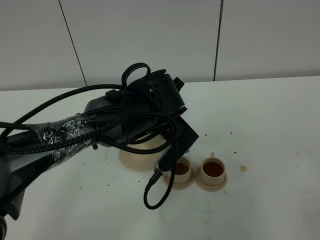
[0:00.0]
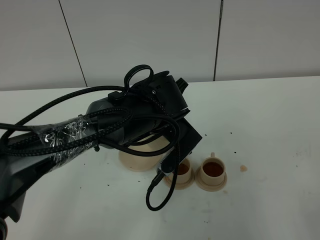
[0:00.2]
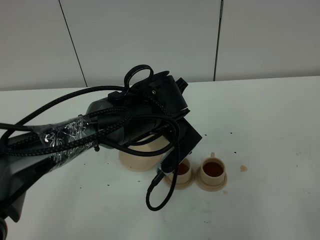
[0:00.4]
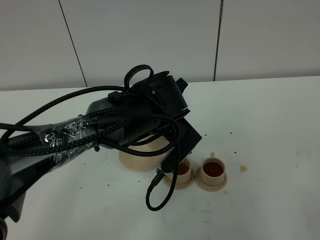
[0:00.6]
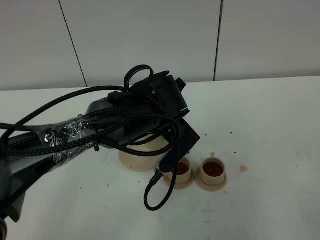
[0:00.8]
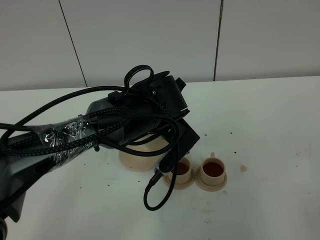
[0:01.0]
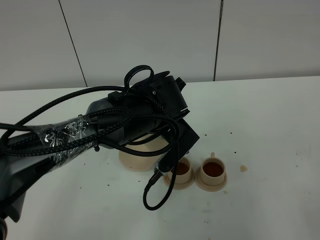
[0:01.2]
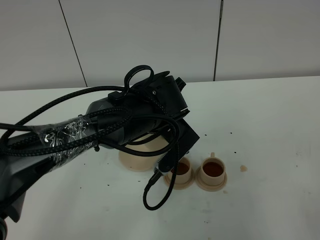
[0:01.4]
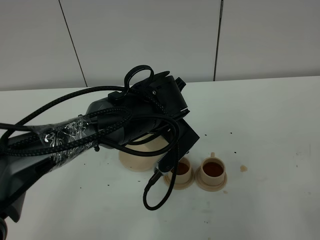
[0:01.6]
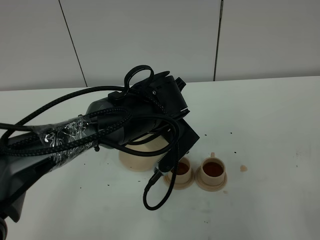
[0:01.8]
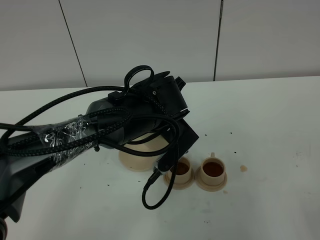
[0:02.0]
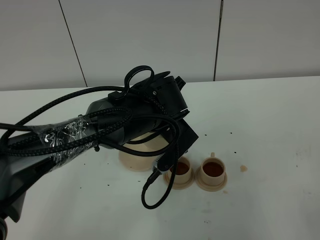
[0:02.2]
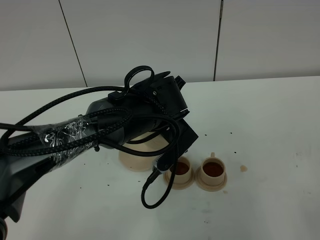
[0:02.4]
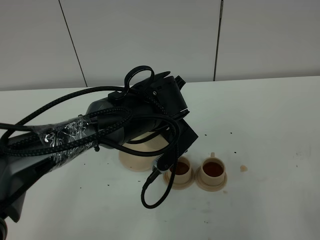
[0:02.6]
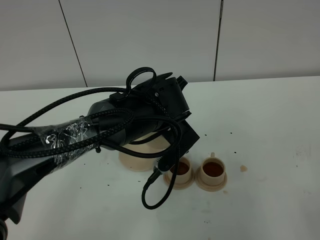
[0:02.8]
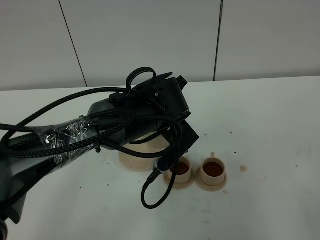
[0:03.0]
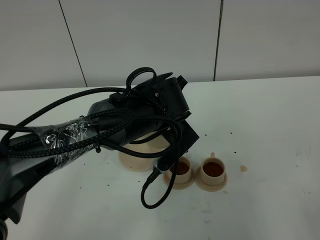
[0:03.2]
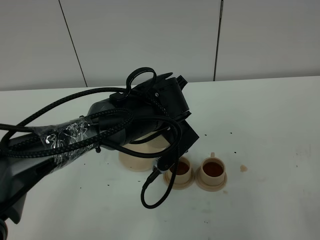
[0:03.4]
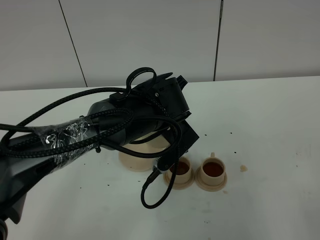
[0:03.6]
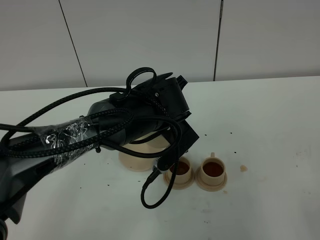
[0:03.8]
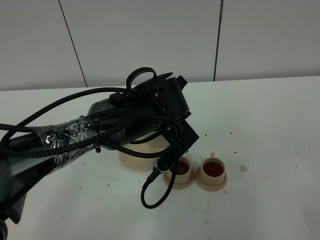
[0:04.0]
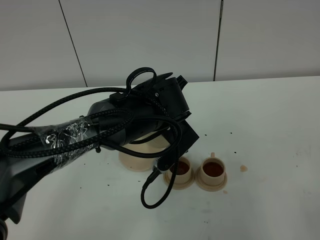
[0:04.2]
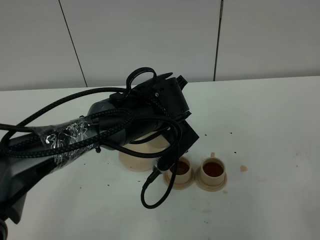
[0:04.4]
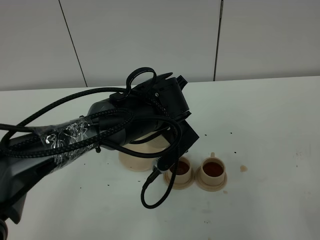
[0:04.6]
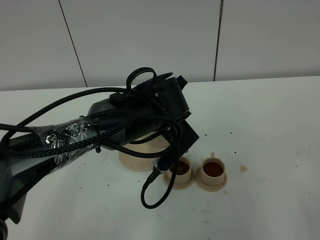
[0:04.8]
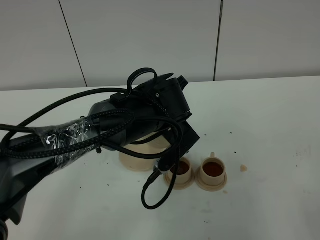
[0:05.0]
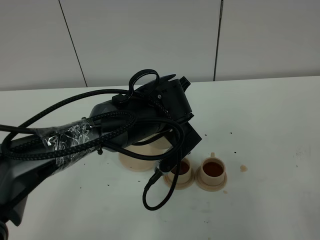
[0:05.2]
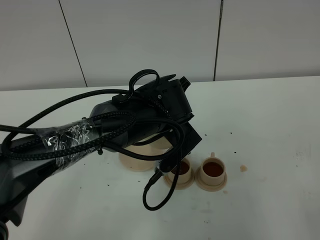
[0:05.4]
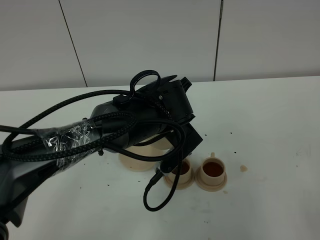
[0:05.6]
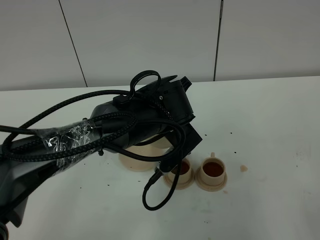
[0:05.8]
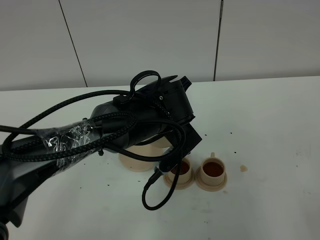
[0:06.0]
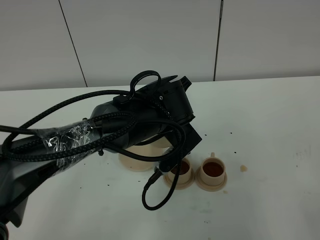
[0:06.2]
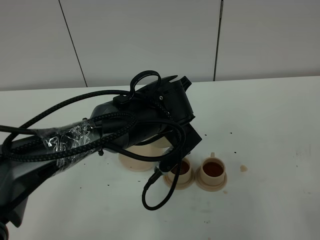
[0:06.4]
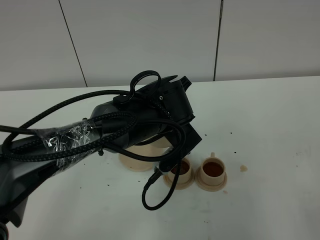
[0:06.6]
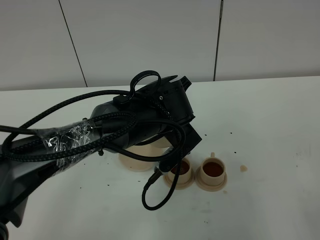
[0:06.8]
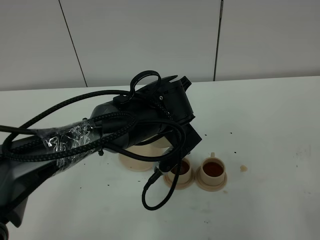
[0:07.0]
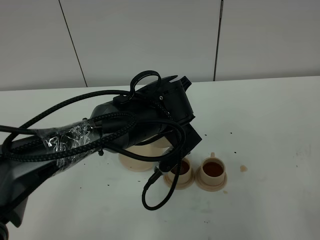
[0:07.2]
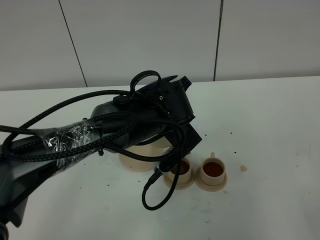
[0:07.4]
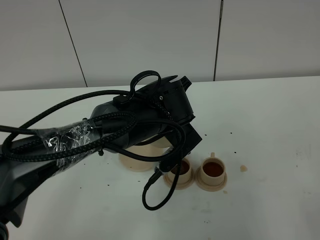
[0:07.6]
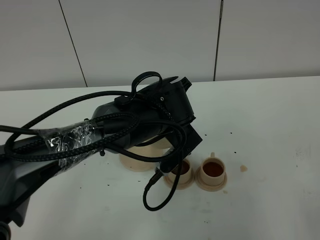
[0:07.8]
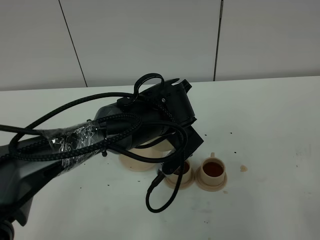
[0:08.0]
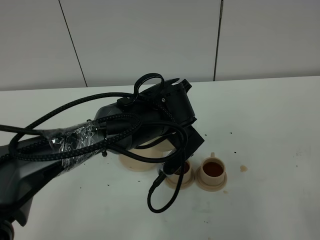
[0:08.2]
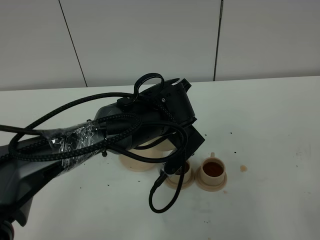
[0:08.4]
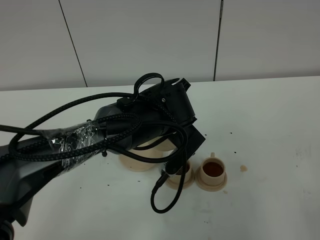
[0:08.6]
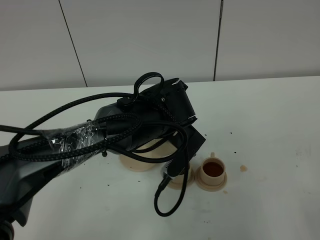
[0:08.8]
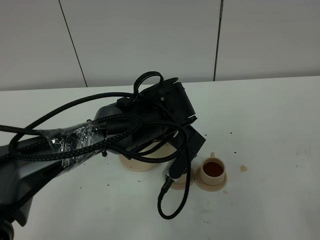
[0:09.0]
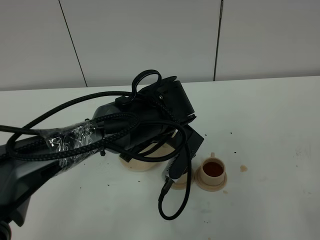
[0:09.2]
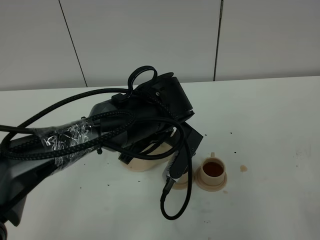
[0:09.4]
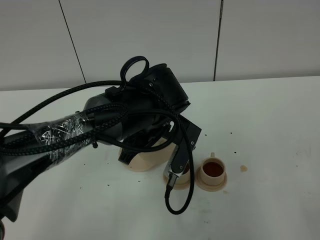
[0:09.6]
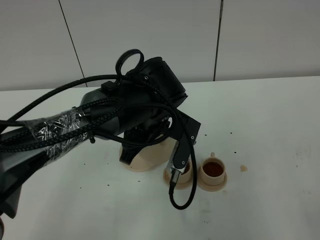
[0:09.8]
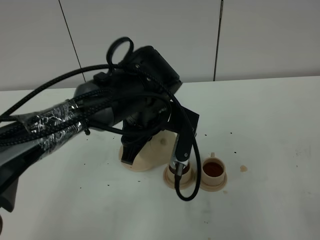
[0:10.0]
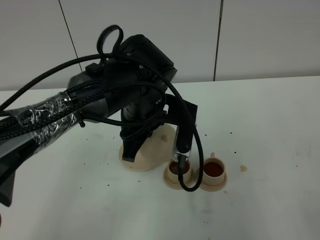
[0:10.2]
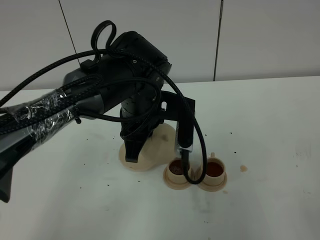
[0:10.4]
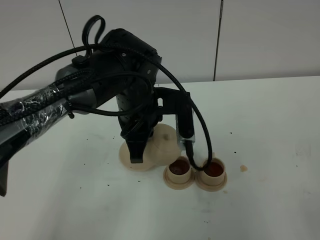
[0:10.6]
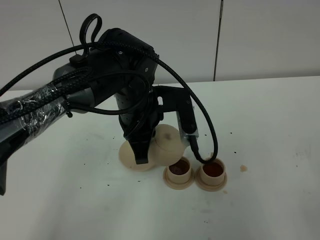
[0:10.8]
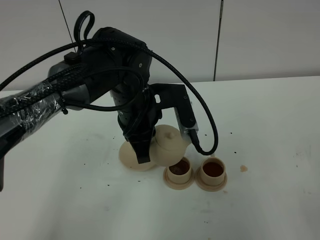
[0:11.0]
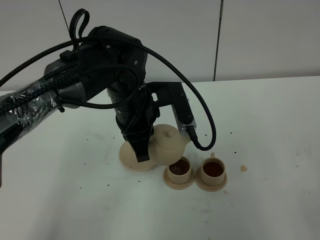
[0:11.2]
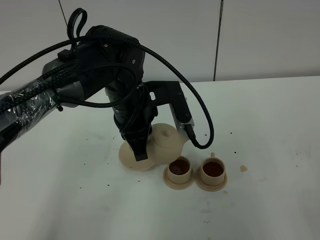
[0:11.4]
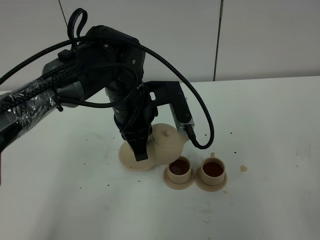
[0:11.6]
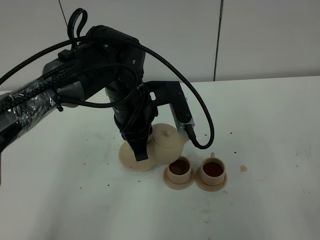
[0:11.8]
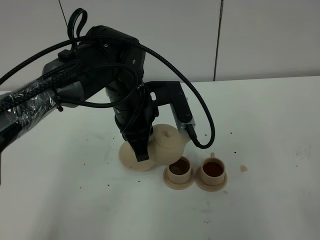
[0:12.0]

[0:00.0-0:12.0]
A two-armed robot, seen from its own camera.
Task of the whole recording: grasp the brown teapot and pour the tea into the two brown teacups one by one, put the brown teapot back in its original place.
Step, 0:00.0 to 0:09.4: Pour tea into the teacup with the left gripper.
0:00.0 to 0:04.4: The two grippers keep their place.
0:04.4 to 0:07.6: Both grippers stay about where they are.
0:07.6 to 0:09.0: The grippers make only small movements.

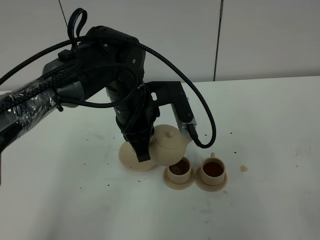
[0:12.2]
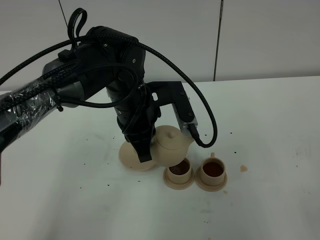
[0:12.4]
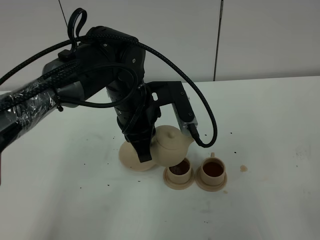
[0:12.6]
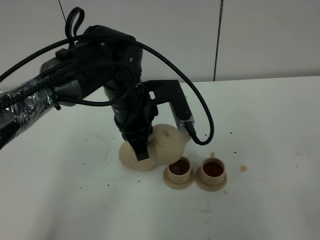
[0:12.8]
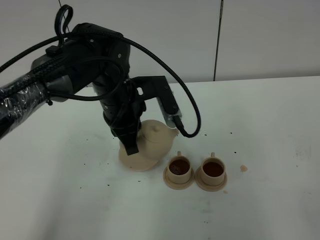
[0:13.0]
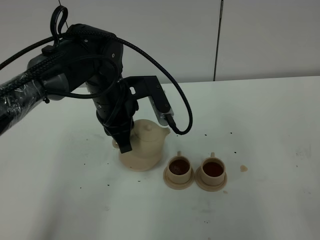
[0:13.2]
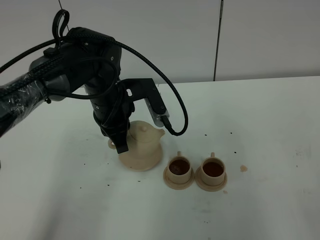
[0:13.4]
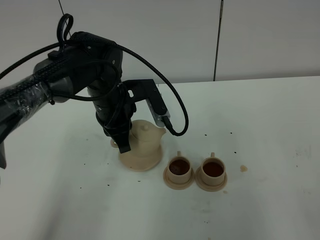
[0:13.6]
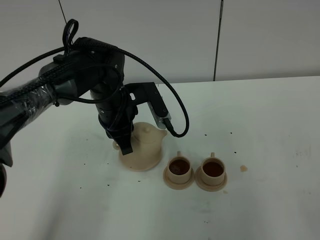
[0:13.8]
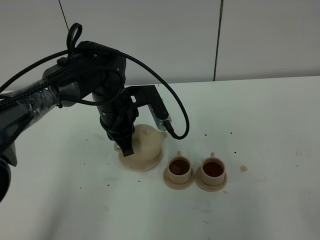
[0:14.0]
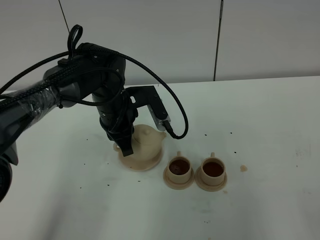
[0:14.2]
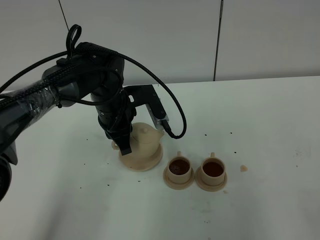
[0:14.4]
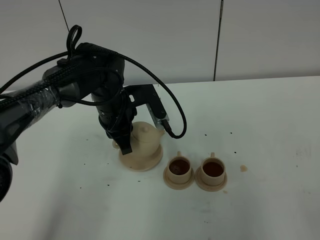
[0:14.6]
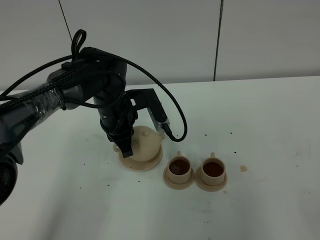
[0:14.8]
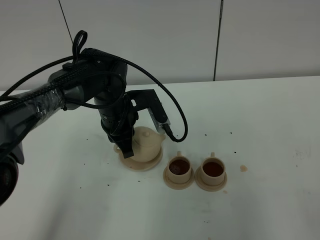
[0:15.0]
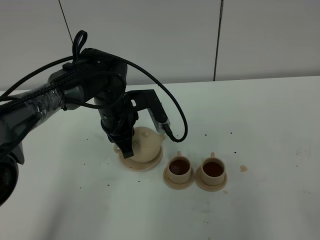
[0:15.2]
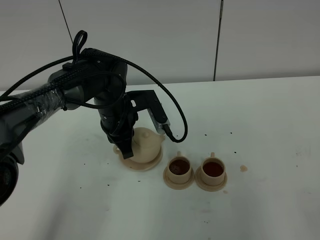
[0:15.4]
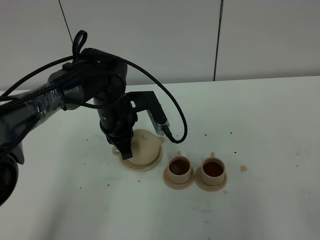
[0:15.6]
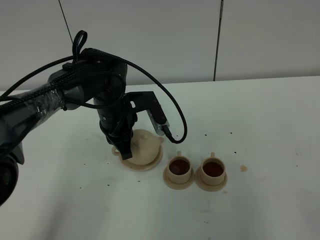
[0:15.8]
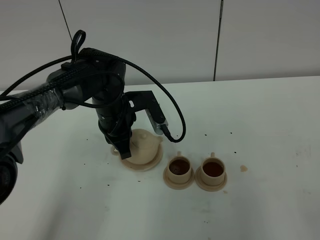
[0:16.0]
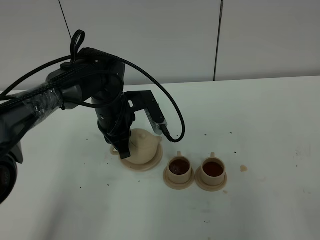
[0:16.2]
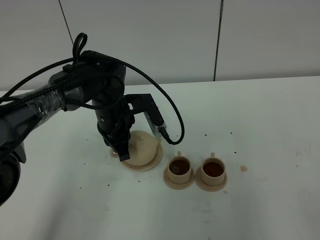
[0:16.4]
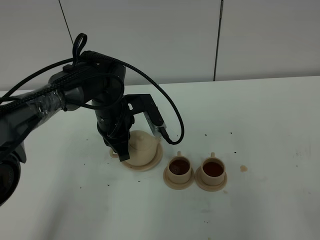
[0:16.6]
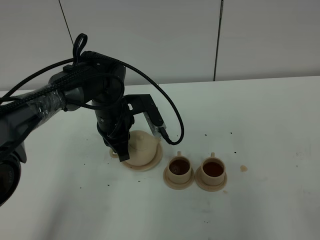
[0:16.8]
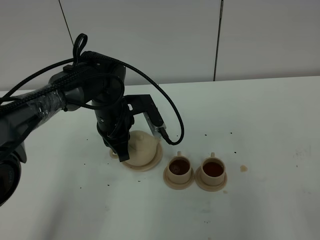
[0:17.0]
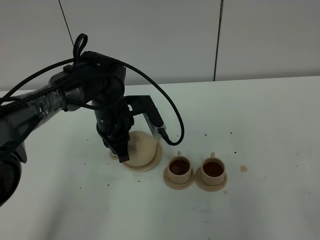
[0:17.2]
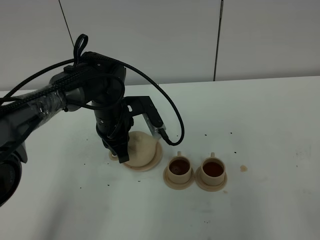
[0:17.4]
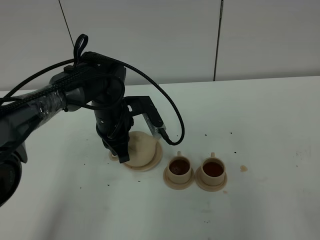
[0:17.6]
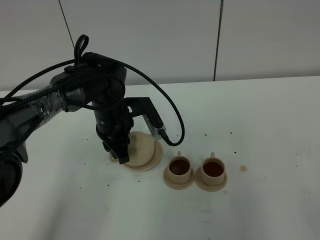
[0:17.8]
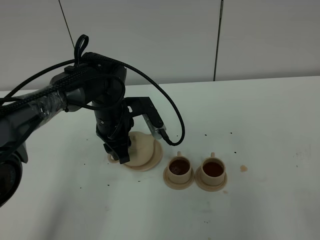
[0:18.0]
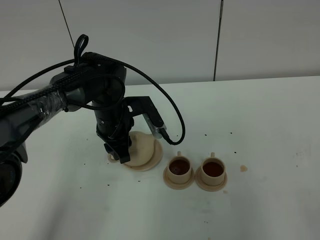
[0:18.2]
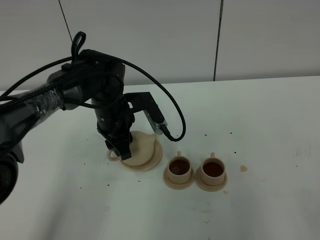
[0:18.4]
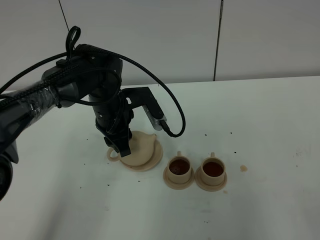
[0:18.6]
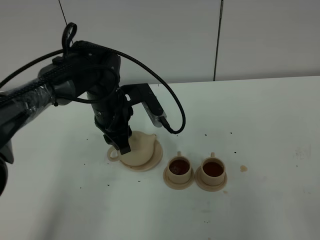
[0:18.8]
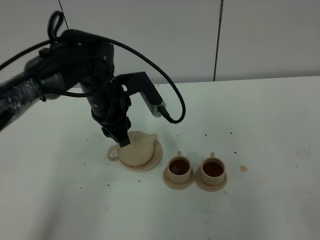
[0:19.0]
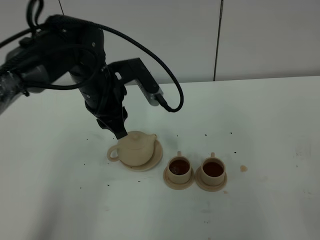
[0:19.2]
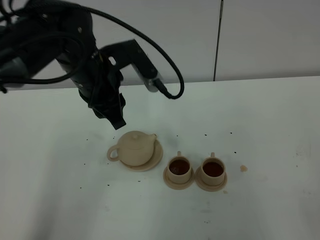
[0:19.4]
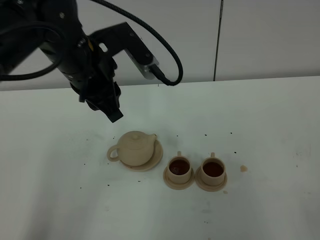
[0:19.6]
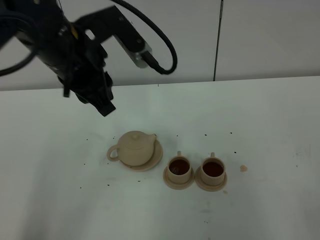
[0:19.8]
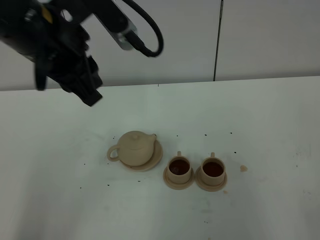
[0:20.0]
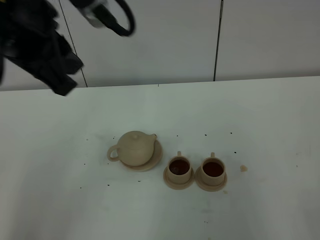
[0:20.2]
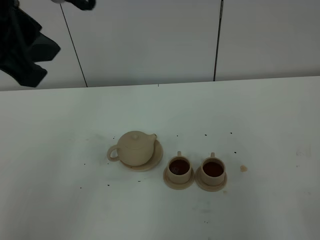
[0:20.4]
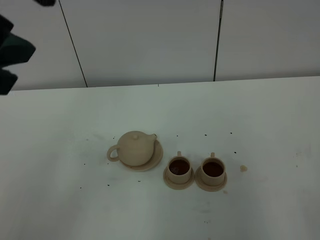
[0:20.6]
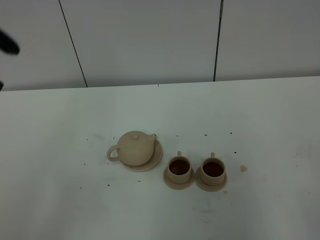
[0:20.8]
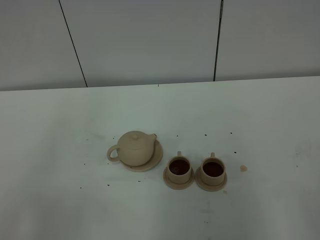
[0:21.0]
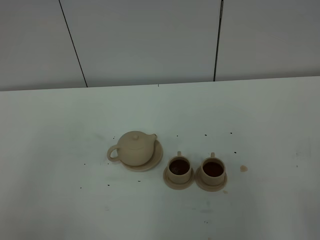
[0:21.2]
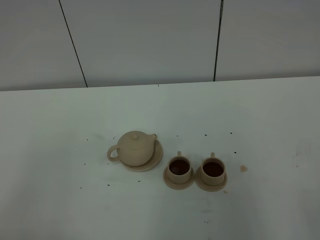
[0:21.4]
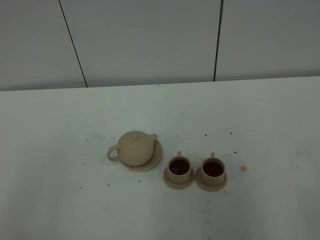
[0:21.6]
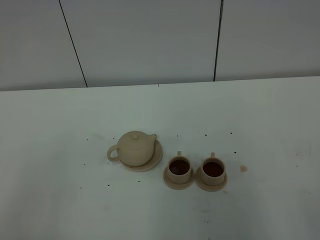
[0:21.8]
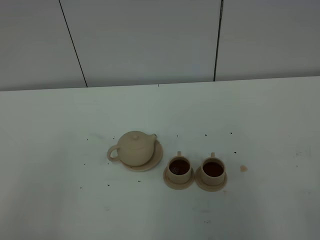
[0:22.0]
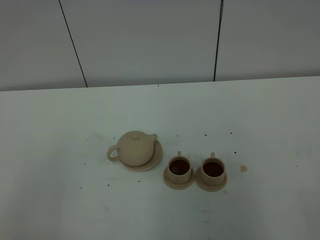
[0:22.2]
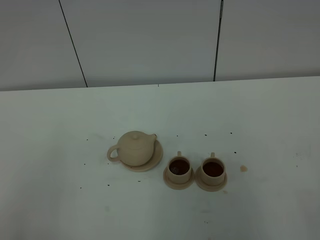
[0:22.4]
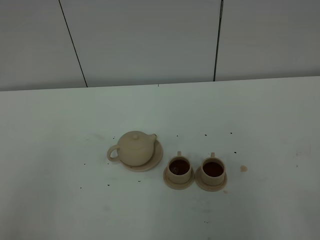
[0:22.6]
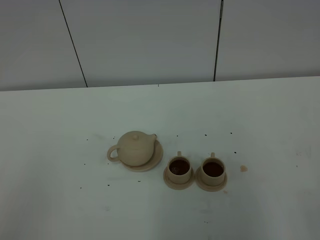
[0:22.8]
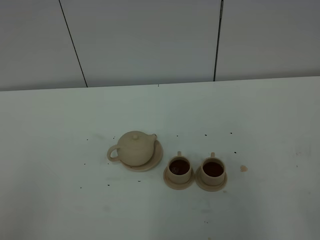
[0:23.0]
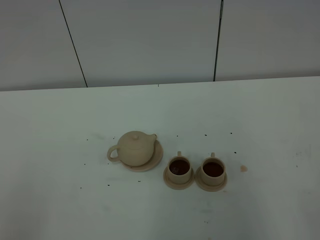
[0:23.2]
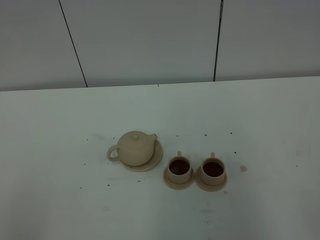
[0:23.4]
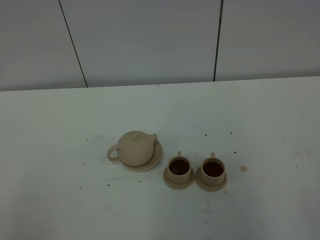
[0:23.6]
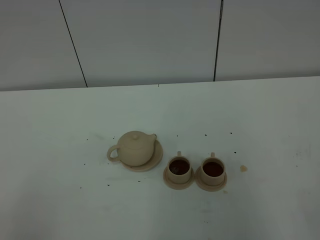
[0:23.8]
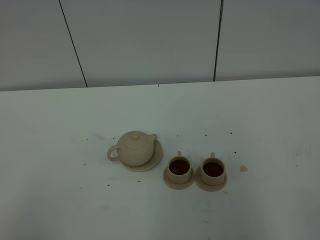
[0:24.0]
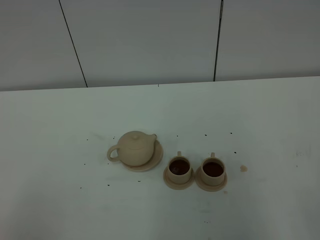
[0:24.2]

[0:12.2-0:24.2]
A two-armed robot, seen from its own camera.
Task of the whole recording: grasp the brown teapot and pour the tea into the two brown teacups one by one, put the brown teapot back in its original place.
0:12.2 to 0:13.8: The left gripper shifts by some 10 cm.
0:13.8 to 0:15.2: There are only small adjustments of the grippers.
0:15.2 to 0:16.6: Neither gripper changes place.
0:16.6 to 0:18.2: The left gripper opens.
0:18.2 to 0:19.8: The left gripper goes roughly 25 cm upward and backward.
0:19.8 to 0:21.2: The left gripper heads backward and to the left, covering approximately 30 cm.
